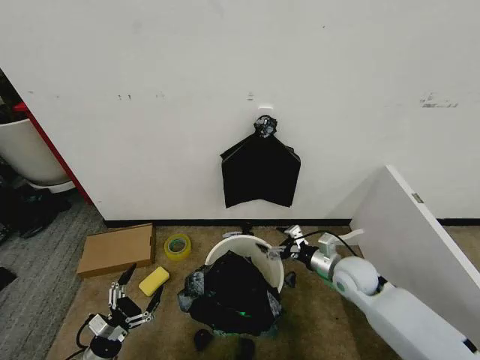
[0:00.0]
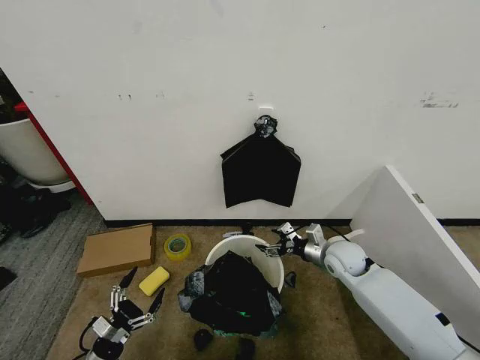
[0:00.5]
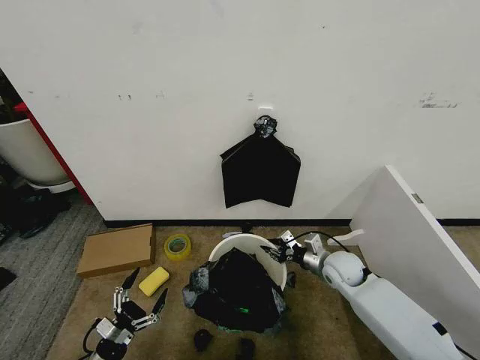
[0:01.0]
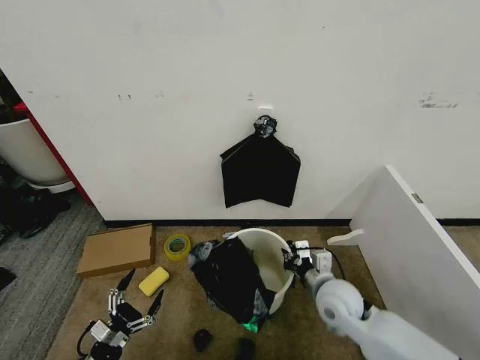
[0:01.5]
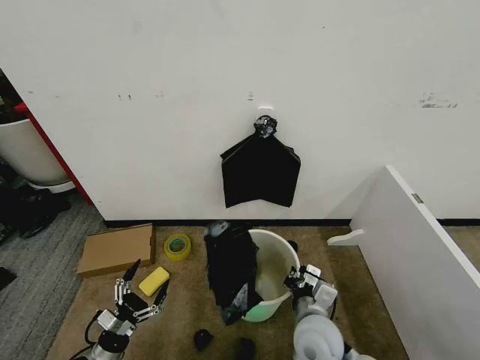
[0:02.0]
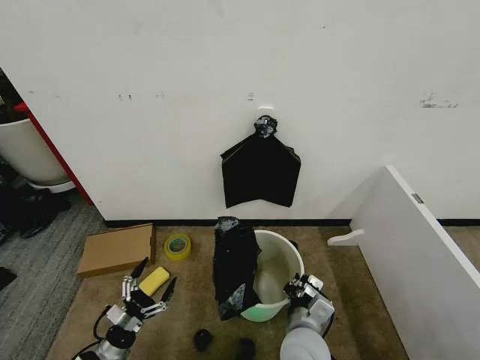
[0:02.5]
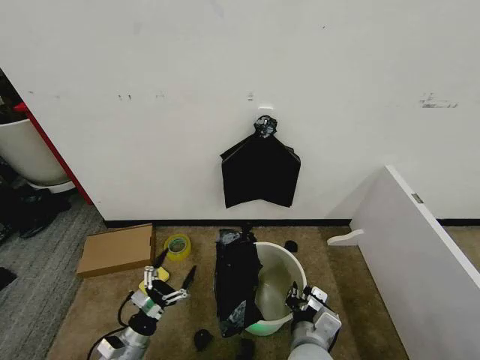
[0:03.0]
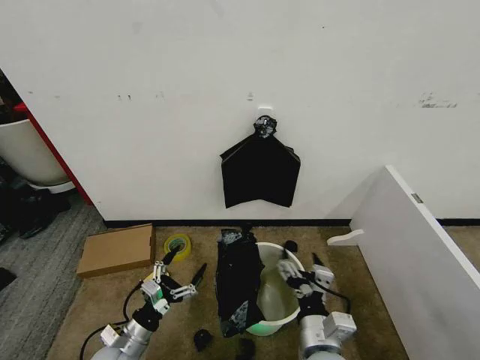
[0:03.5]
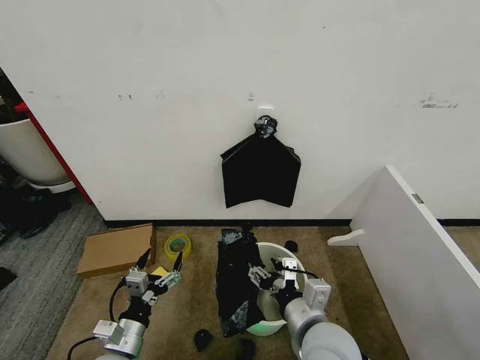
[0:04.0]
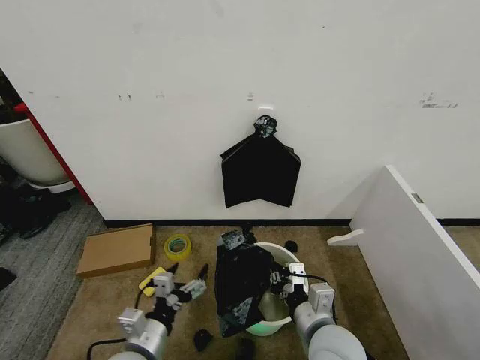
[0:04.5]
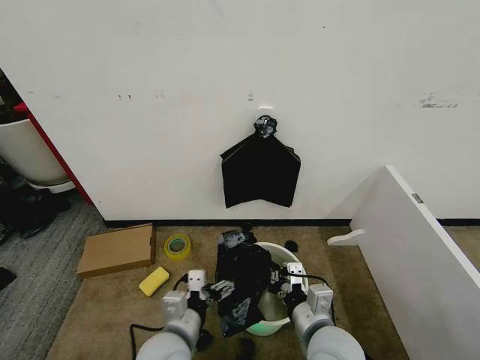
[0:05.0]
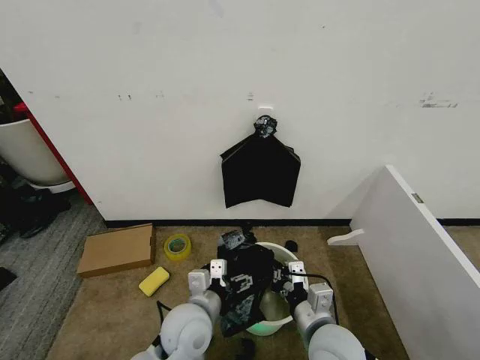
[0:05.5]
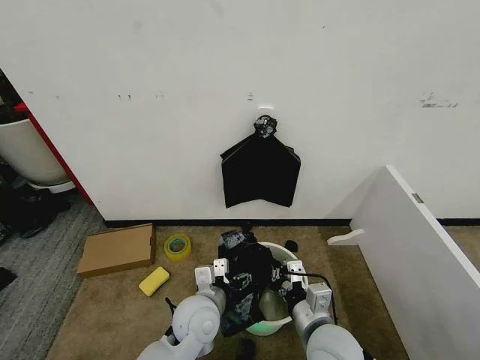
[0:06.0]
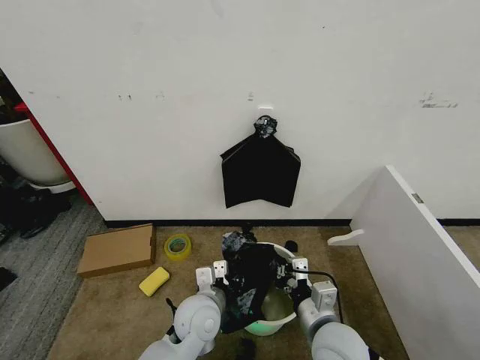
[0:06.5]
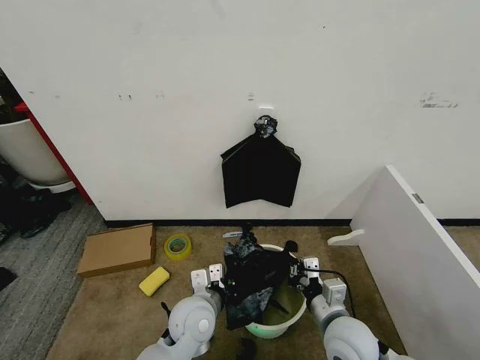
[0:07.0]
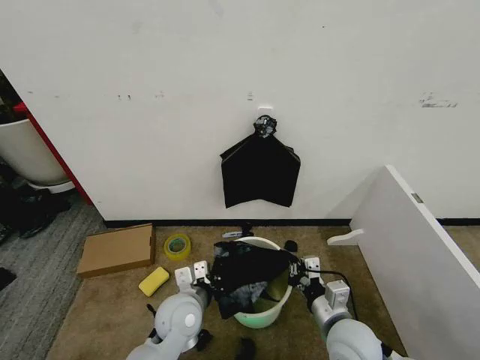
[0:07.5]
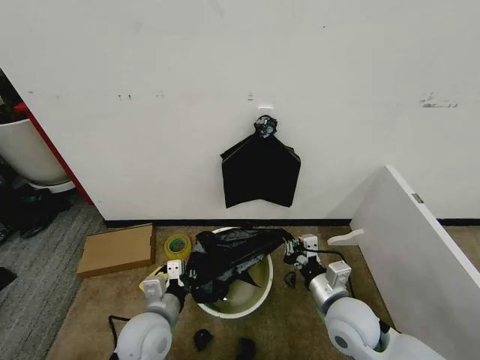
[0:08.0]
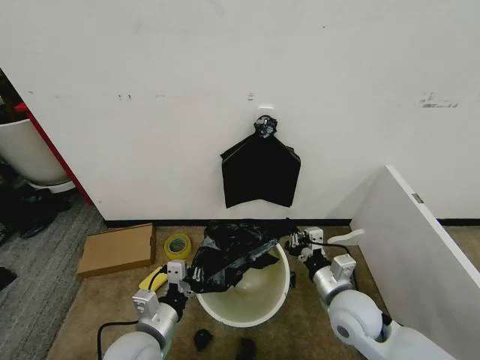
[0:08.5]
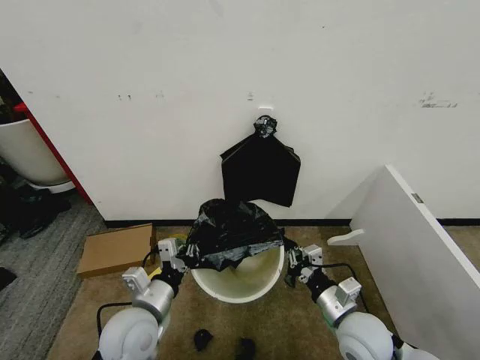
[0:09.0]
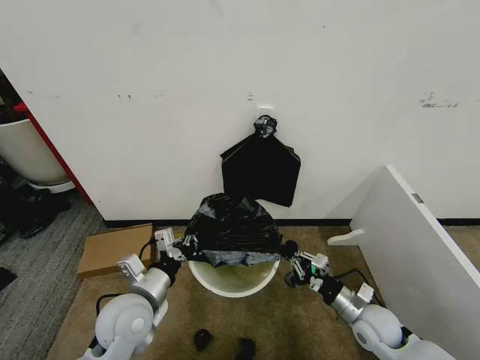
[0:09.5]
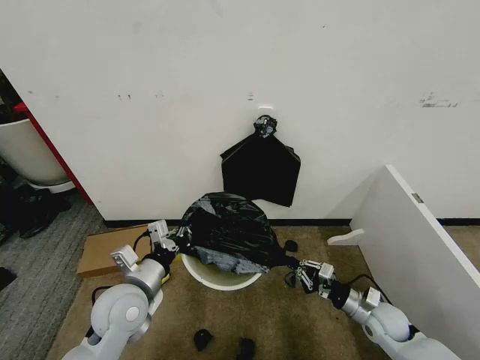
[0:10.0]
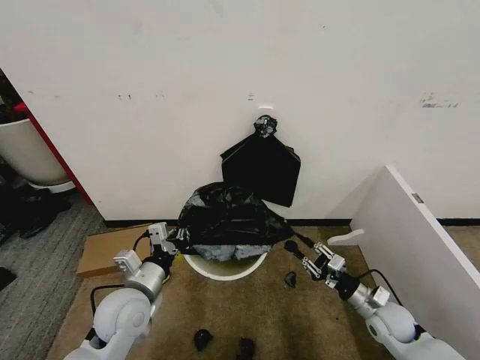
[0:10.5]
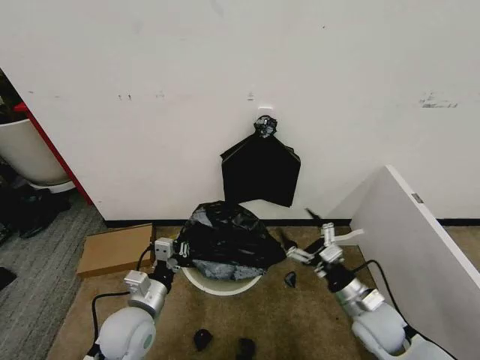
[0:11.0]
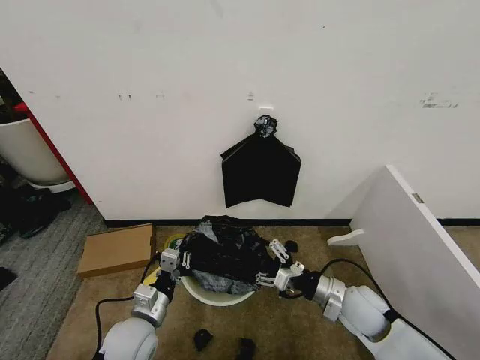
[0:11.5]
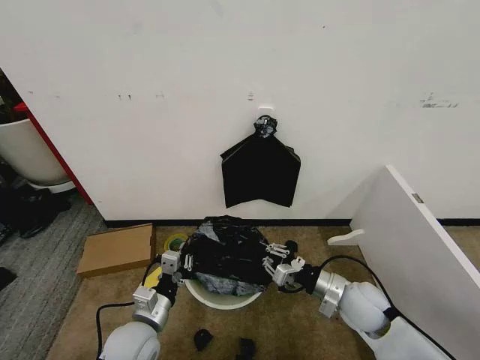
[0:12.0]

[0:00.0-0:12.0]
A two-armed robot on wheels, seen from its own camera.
Task of the whole recording: Place the garbage bag over the trash bin.
0.0 to 2.0 s: The right gripper moves backward and to the left, about 15 cm, and closes its fingers.
2.0 to 4.0 s: The left gripper shifts approximately 15 cm upward and to the right. Meanwhile the right gripper goes approximately 5 cm upward, and opens up.
4.0 to 6.0 s: The left gripper travels to the right and forward by approximately 20 cm, while the right gripper closes.
6.0 to 8.0 s: The left gripper heads to the left, covering roughly 10 cm, and closes up; the right gripper travels forward and to the right by some 5 cm.
8.0 to 10.0 s: The left gripper is displaced upward by roughly 5 cm. Meanwhile the right gripper moves to the right and downward, roughly 20 cm.
10.0 to 12.0 s: The right gripper moves upward and to the left, some 15 cm, and opens, then closes again, while the left gripper heads downward, covering about 10 cm.

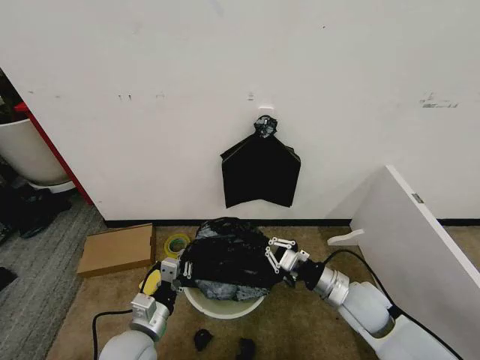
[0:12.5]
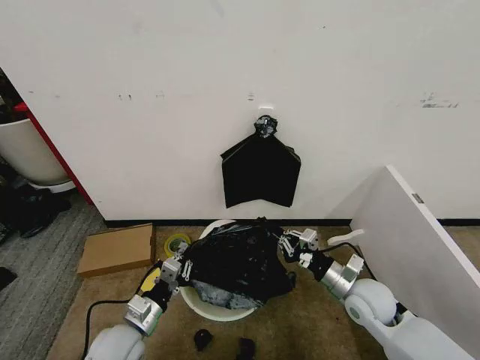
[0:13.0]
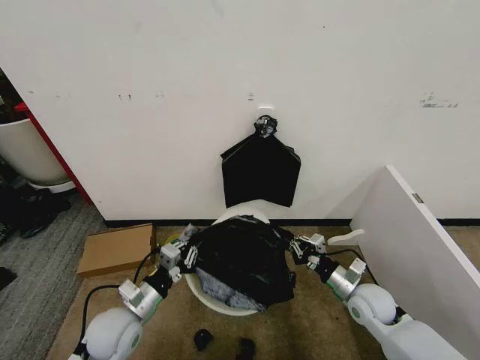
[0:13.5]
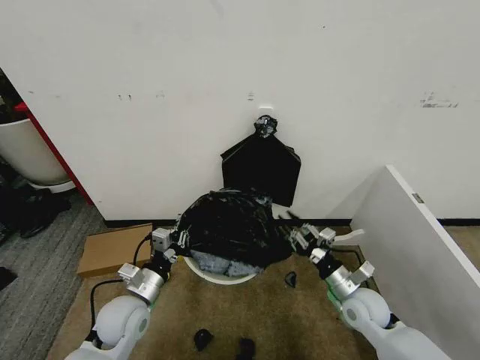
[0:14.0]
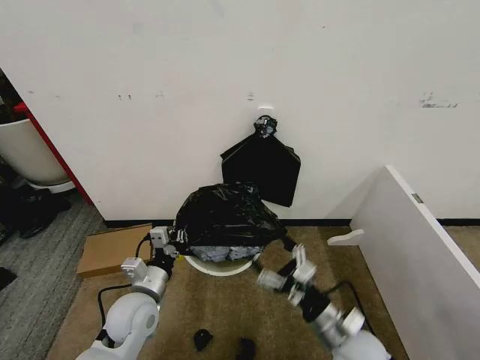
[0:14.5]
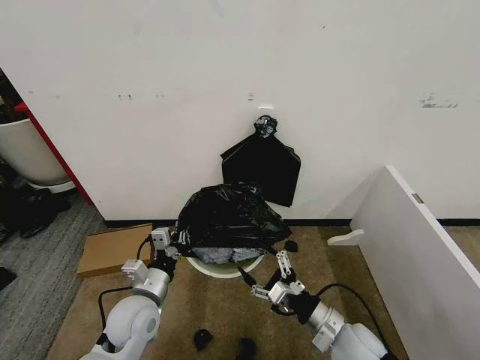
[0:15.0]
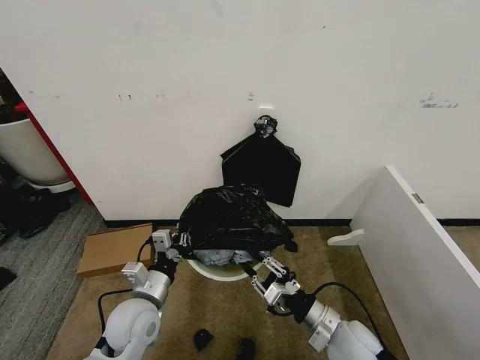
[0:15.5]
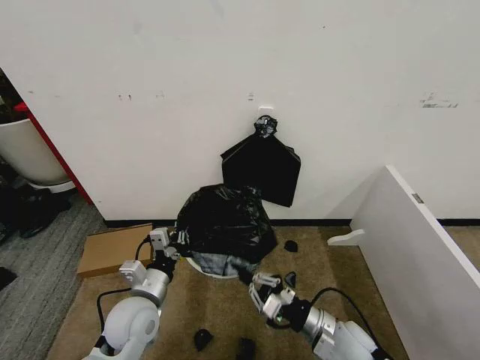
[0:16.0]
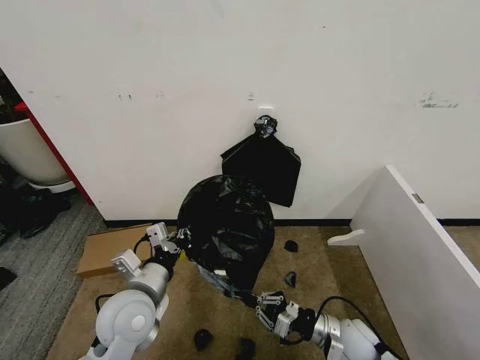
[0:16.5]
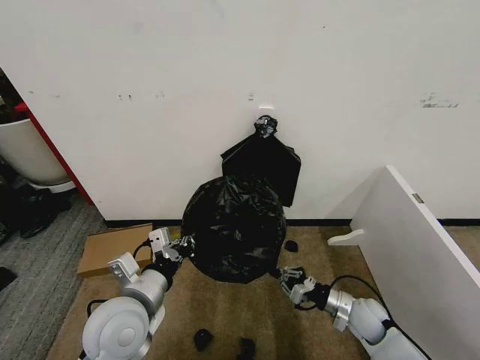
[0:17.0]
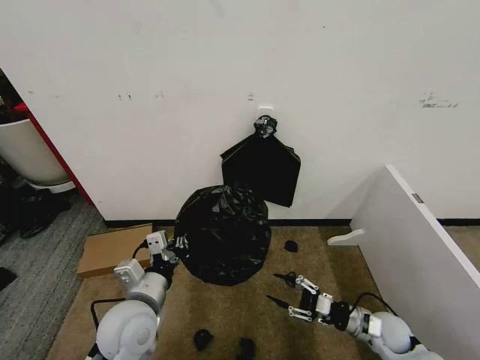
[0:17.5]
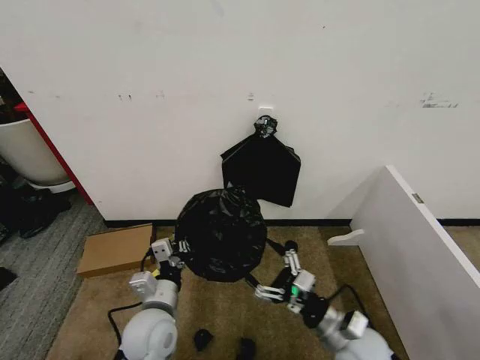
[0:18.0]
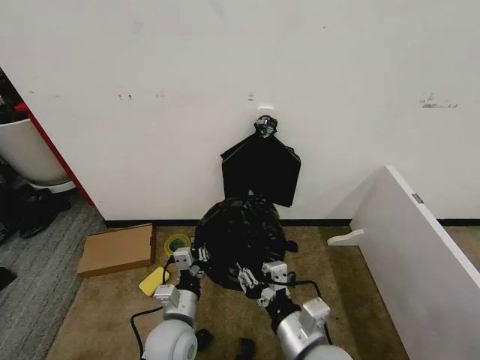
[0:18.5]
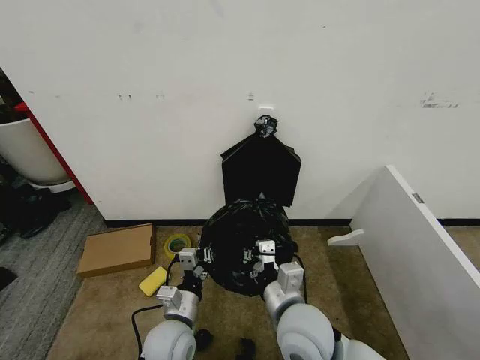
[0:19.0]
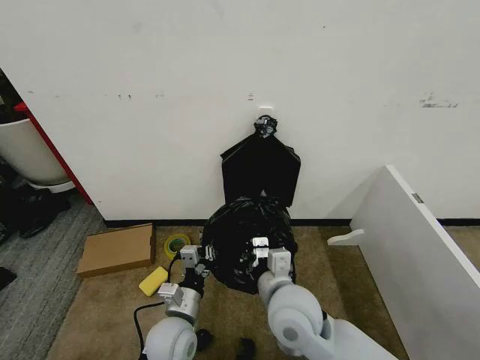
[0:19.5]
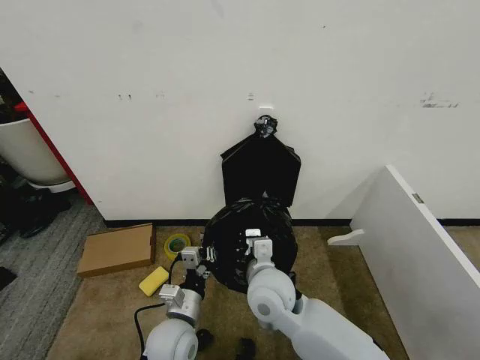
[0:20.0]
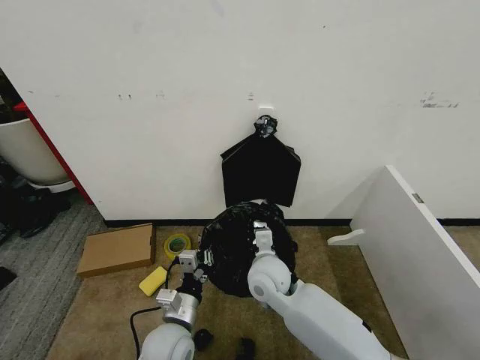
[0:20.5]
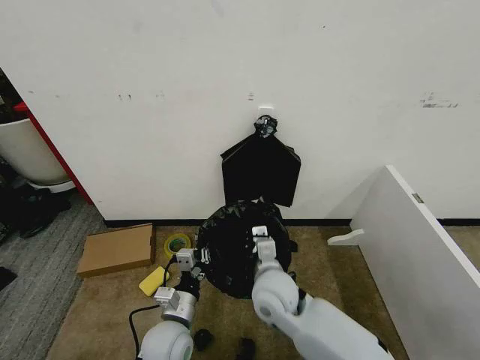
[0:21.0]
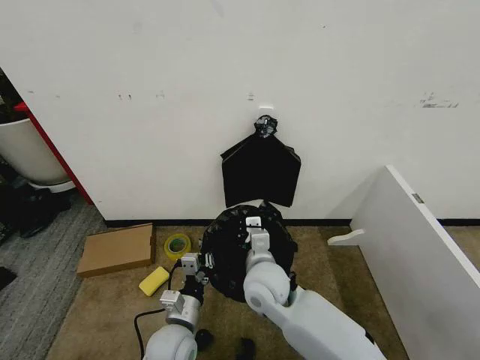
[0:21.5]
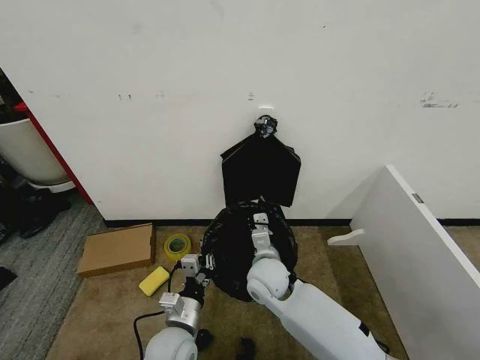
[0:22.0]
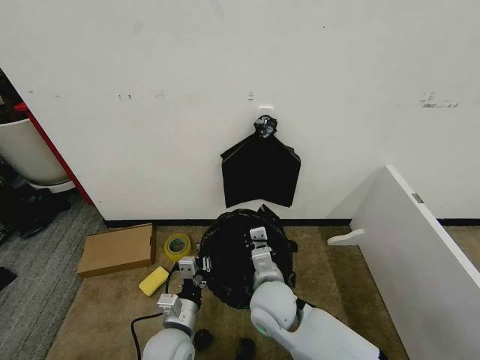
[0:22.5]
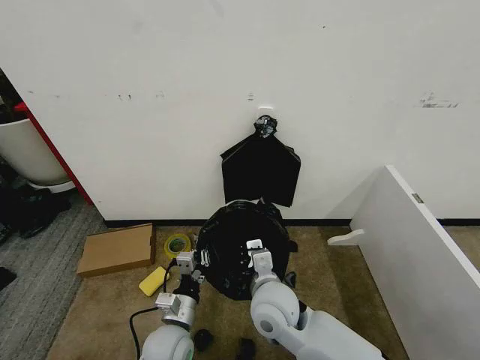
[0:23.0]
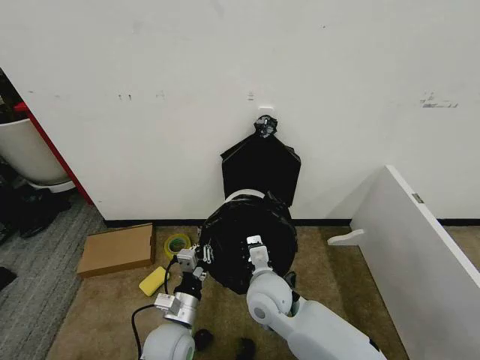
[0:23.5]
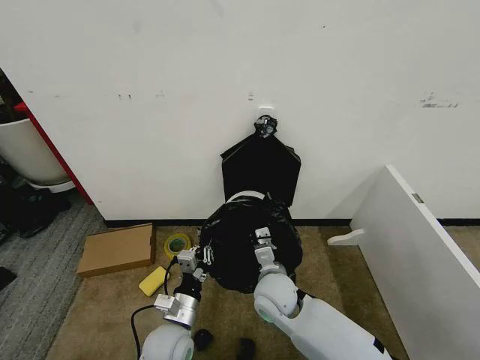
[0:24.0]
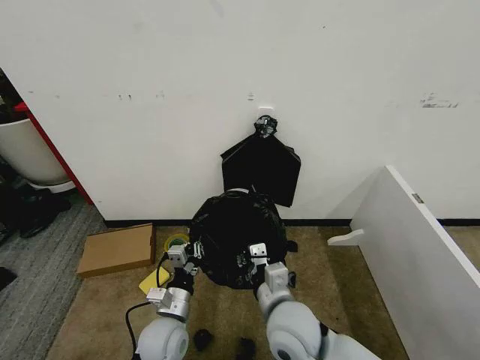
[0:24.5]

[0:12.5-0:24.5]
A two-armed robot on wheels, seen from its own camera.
Task of the whole recording: Place the garbage bag over the trash bin.
12.5 to 14.5 s: The left gripper is displaced forward by roughly 5 cm, while the right gripper shifts approximately 10 cm backward, and opens up.
14.5 to 16.5 s: The left gripper moves upward, approximately 5 cm; the right gripper heads downward, covering roughly 10 cm, and closes up.
16.5 to 18.5 s: The right gripper moves upward, to the left and backward, about 20 cm, and opens up. Meanwhile the left gripper travels downward and to the right by about 10 cm.
18.5 to 20.5 s: The right gripper shifts approximately 20 cm forward, and closes up.
22.5 to 24.5 s: The right gripper moves backward, approximately 5 cm.

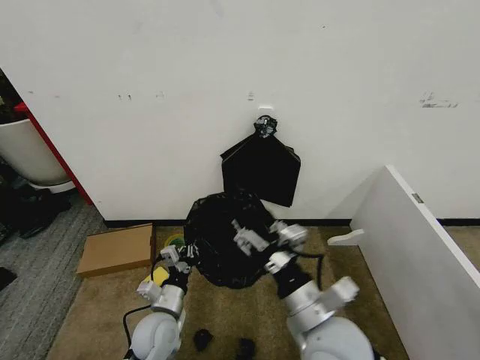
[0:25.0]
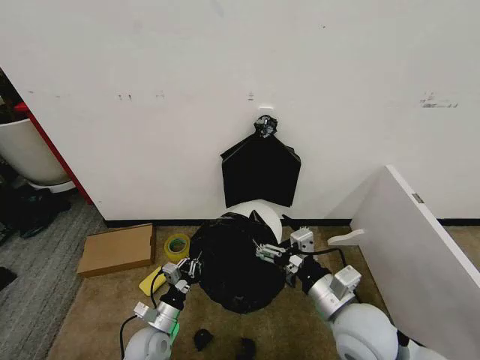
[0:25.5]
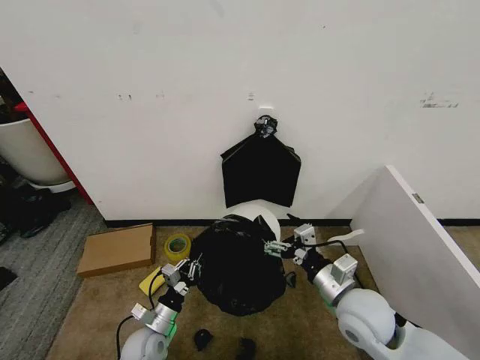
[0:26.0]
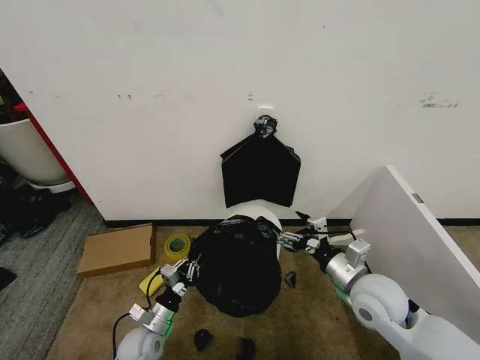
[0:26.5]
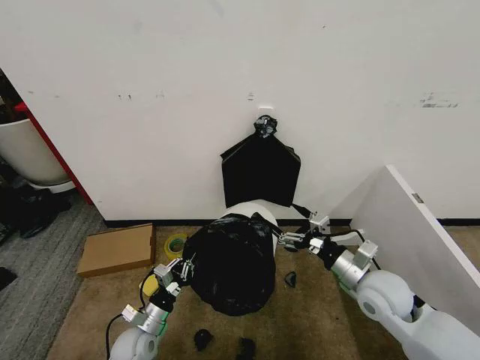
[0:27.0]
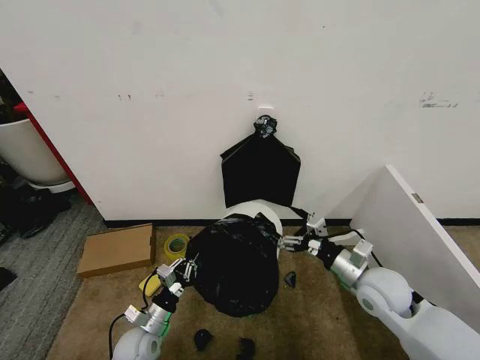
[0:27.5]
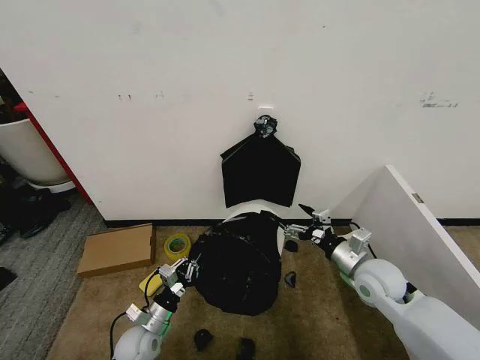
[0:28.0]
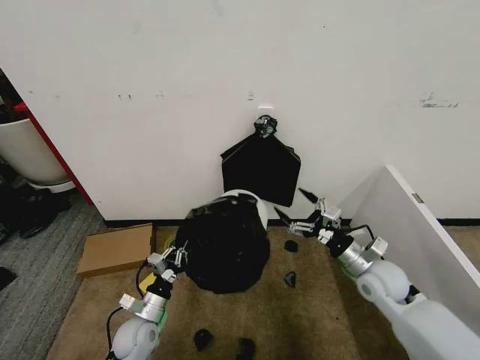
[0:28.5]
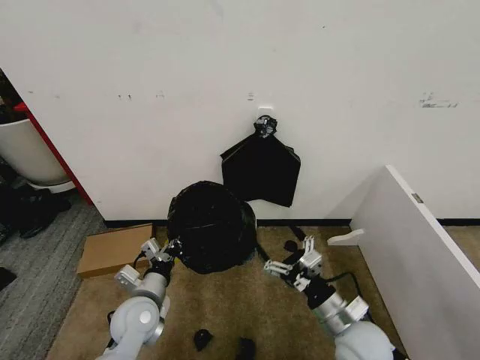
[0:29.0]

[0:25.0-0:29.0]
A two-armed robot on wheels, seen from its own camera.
Task of the whole recording: Place the garbage bag over the trash bin.
25.0 to 27.0 s: The right gripper is displaced to the right and forward by roughly 20 cm. The left gripper travels downward and to the left by about 10 cm.
27.0 to 29.0 s: The left gripper travels upward by about 10 cm. Meanwhile the right gripper heads backward and to the left, covering roughly 10 cm.
